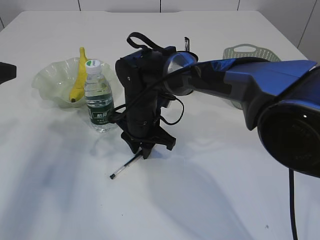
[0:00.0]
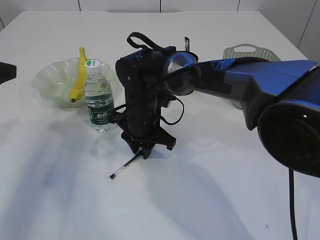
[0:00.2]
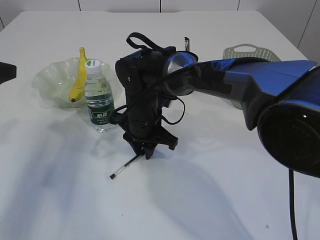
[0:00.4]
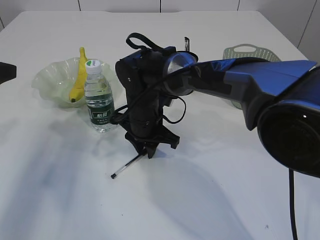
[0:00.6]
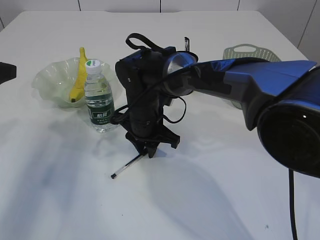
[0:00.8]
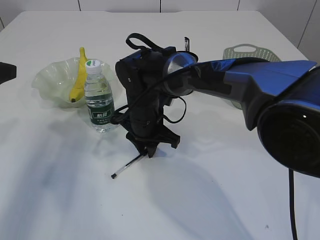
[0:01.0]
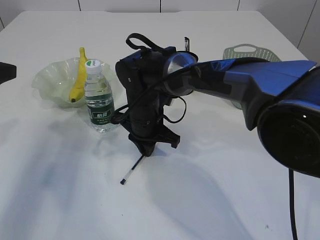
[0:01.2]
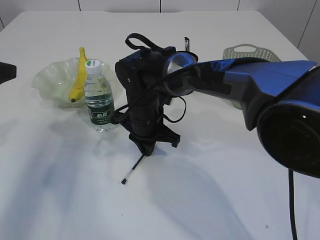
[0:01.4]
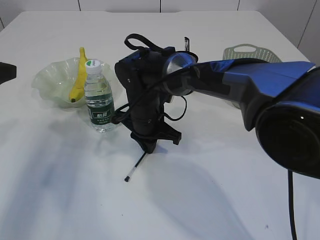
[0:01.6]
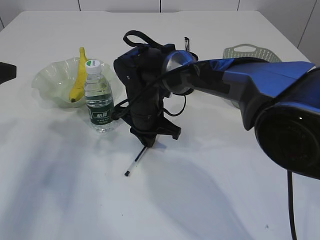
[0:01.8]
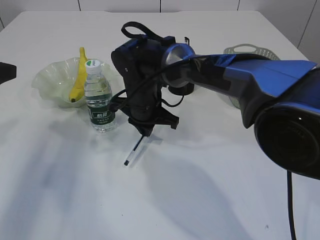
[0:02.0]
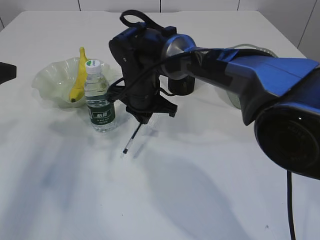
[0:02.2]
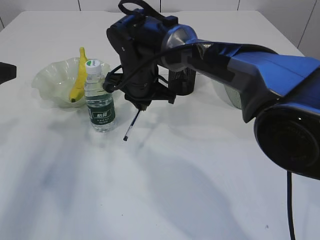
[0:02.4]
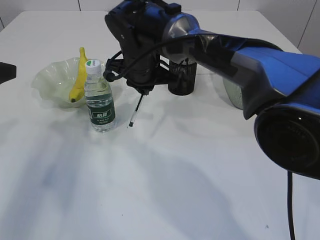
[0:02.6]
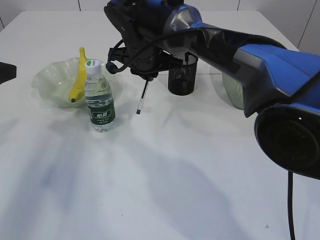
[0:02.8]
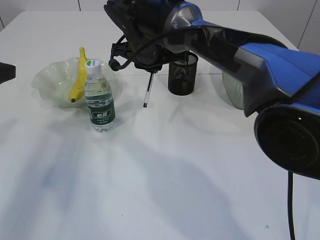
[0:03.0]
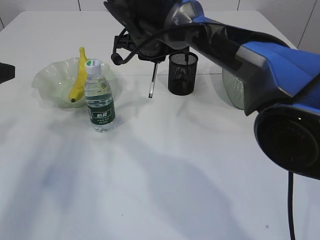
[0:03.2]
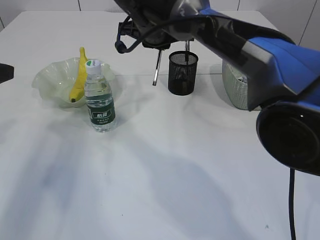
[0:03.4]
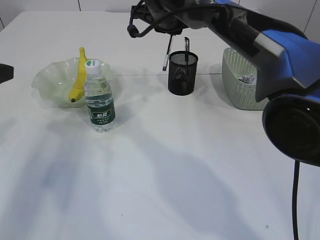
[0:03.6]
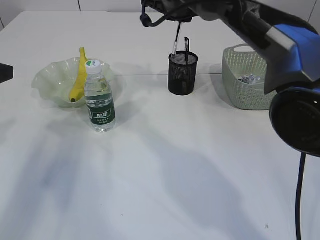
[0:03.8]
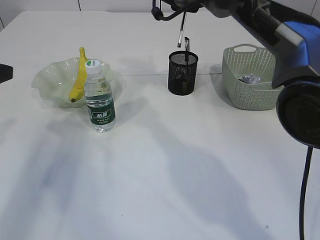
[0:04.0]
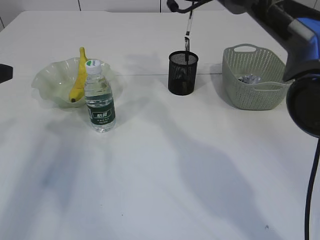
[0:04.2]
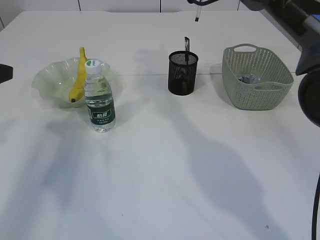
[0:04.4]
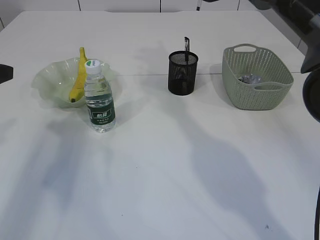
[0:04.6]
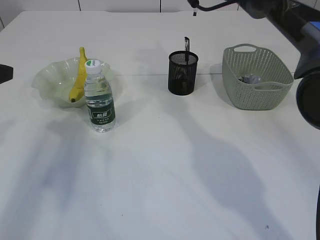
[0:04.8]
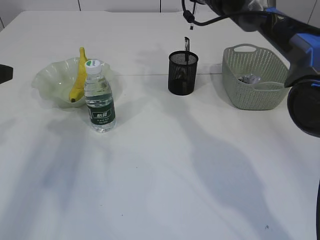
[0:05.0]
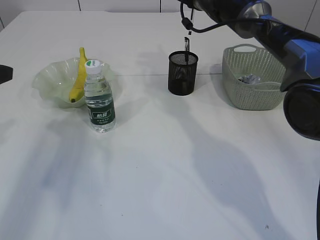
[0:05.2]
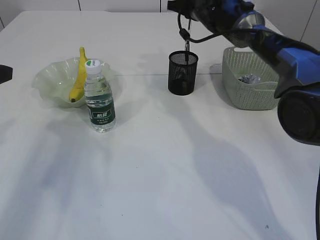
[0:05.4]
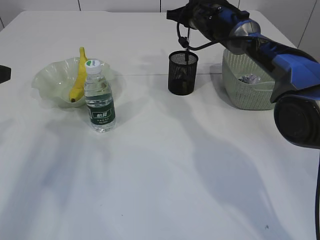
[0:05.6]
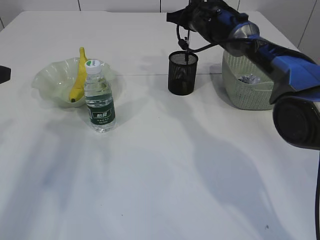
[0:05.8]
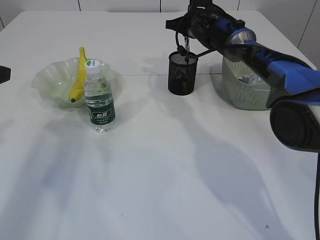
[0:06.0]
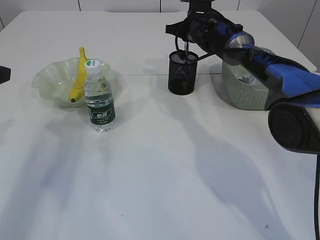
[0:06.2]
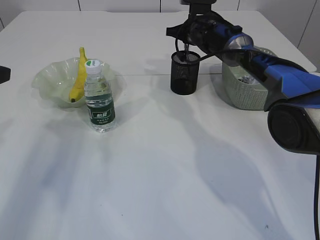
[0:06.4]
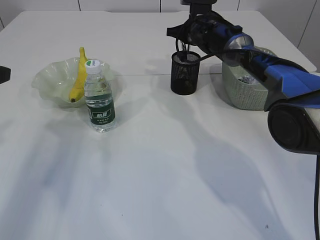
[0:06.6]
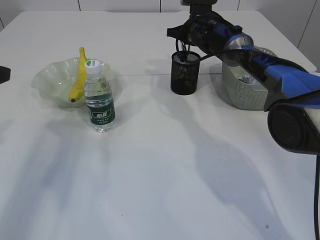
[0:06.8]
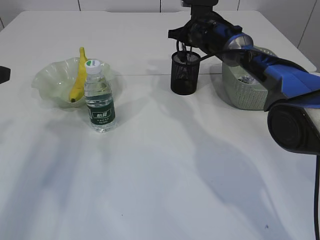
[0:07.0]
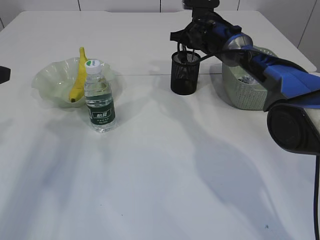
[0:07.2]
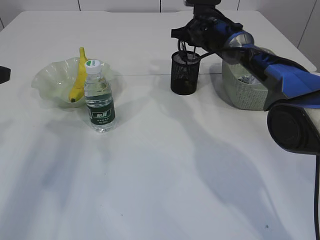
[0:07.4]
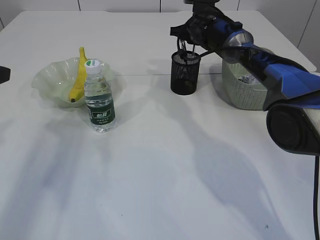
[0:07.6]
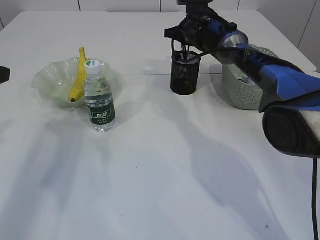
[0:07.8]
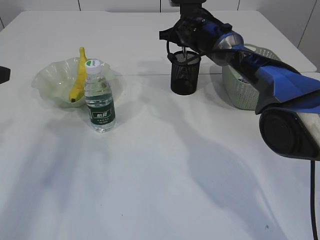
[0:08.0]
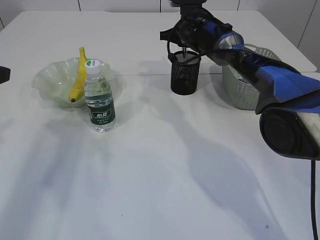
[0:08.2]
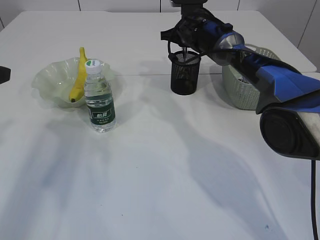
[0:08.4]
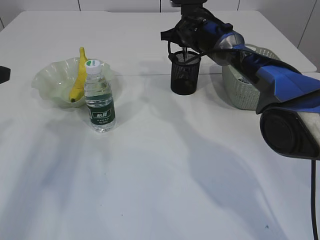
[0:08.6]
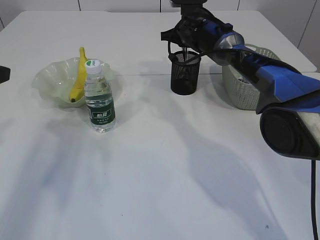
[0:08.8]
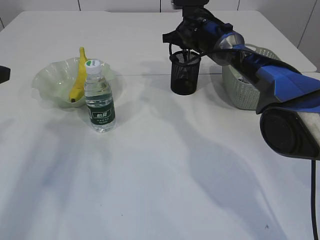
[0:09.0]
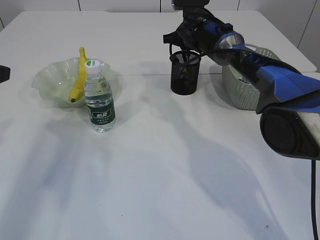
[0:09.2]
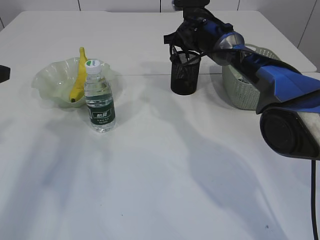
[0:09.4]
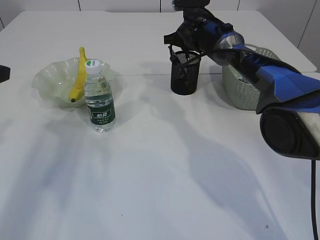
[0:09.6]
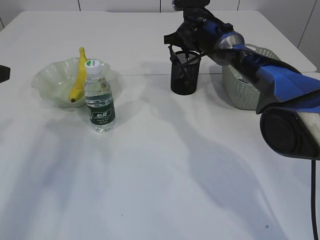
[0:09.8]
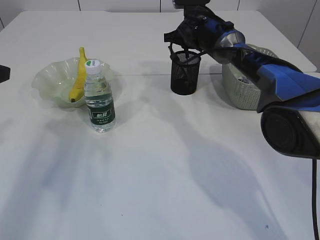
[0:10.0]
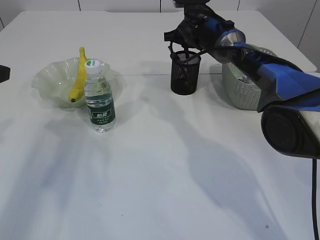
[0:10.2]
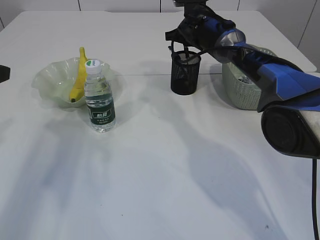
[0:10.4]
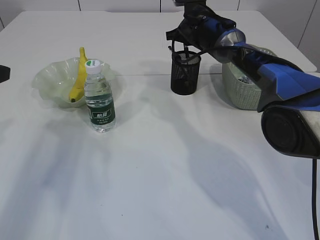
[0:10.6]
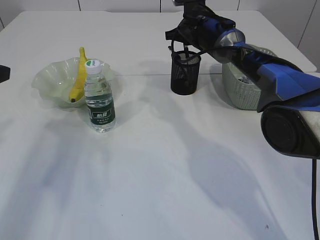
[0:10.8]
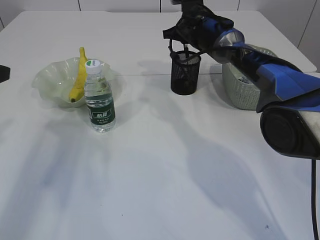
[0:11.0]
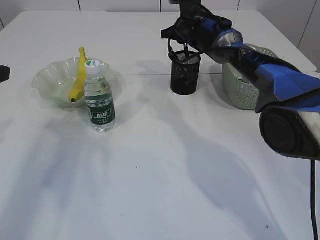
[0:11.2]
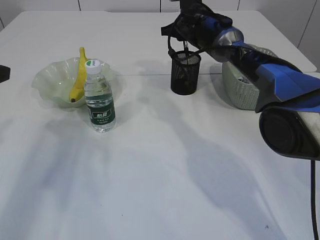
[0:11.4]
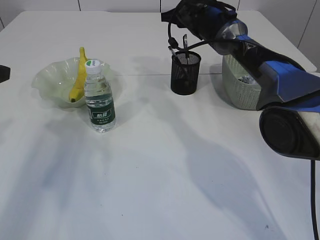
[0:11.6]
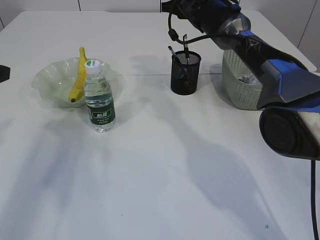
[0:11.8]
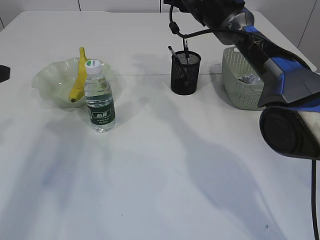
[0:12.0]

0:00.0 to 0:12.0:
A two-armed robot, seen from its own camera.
Step, 0:00.0 to 0:02.2: Pick up the pen with right arm.
Step, 0:02.4 to 0:11.4: Place the pen into the pen holder.
0:00.0 to 0:01.6: The grippers move only a little.
0:01.6 to 0:03.0: The right gripper travels upward by about 10 cm.
0:03.0 to 0:04.4: The right gripper goes some 20 cm to the right, forward and upward.
0:04.4 to 0:06.0: The right gripper travels downward by approximately 10 cm.
0:06.0 to 0:09.0: The grippers stay close to where they were, moving slightly.
0:09.0 to 0:10.4: The two grippers keep their place.
0:10.4 to 0:12.0: The right gripper goes some 5 cm upward.

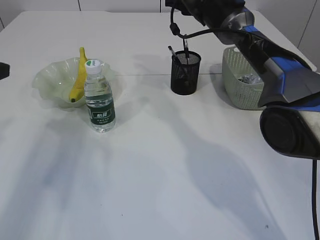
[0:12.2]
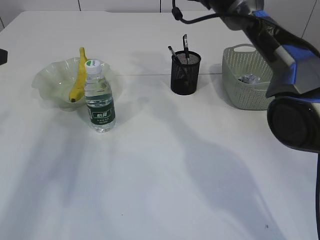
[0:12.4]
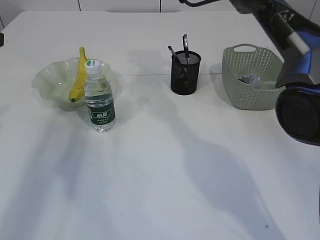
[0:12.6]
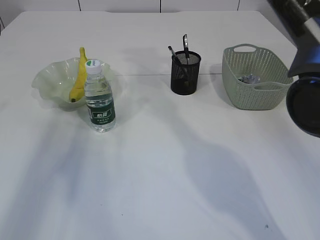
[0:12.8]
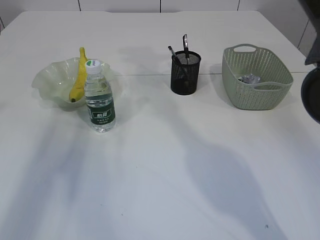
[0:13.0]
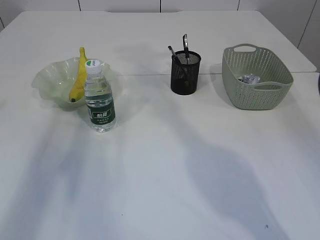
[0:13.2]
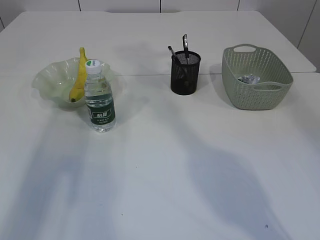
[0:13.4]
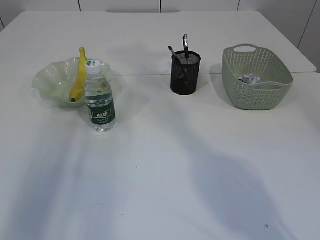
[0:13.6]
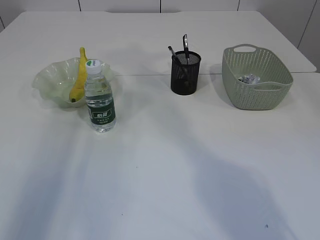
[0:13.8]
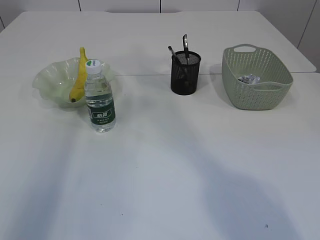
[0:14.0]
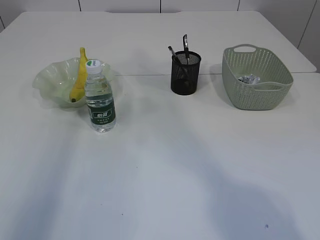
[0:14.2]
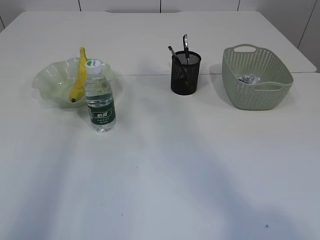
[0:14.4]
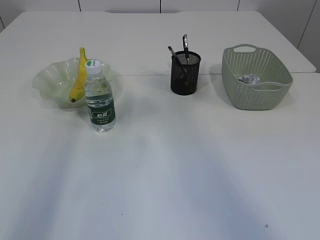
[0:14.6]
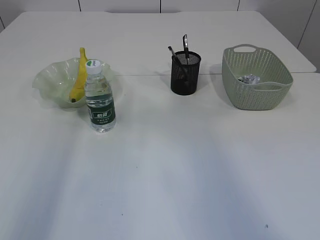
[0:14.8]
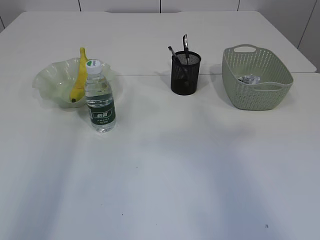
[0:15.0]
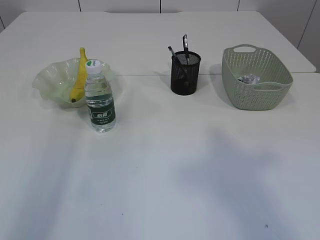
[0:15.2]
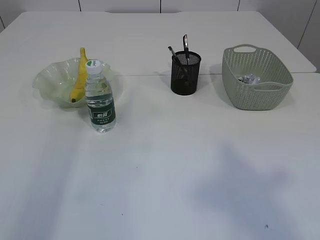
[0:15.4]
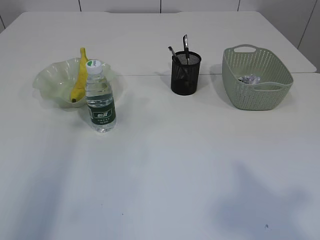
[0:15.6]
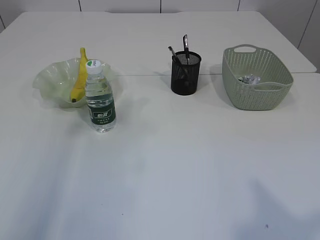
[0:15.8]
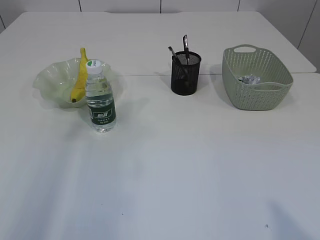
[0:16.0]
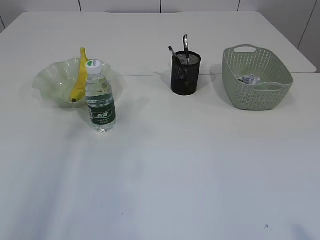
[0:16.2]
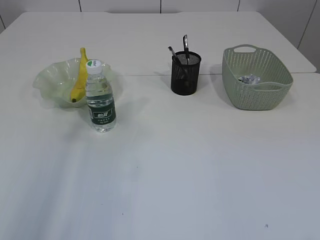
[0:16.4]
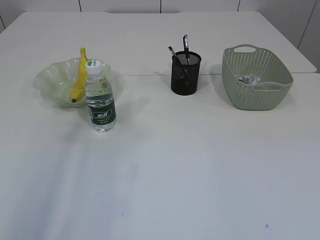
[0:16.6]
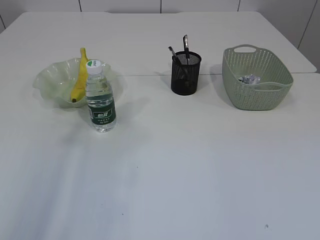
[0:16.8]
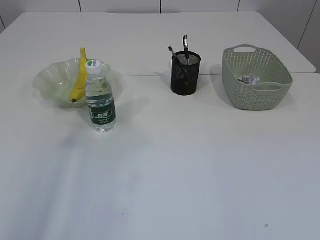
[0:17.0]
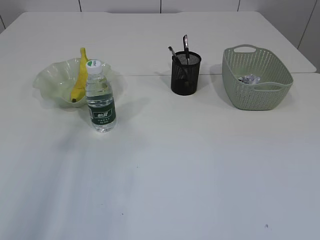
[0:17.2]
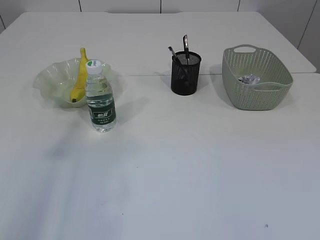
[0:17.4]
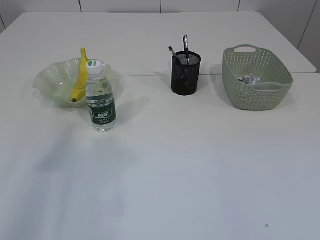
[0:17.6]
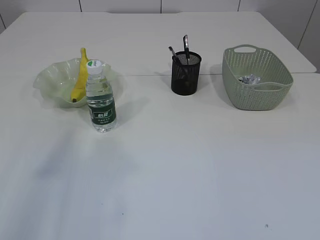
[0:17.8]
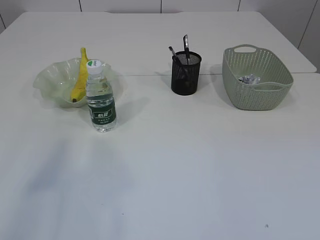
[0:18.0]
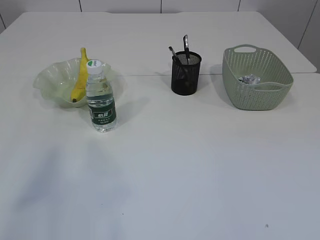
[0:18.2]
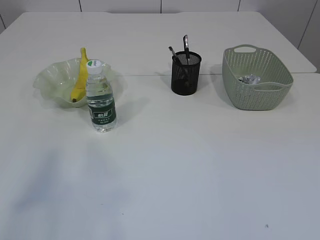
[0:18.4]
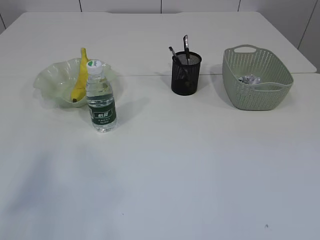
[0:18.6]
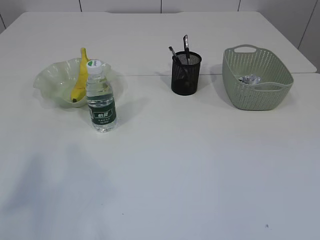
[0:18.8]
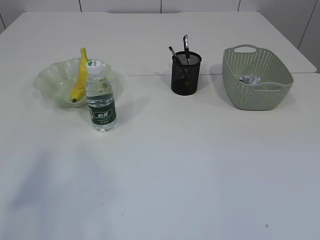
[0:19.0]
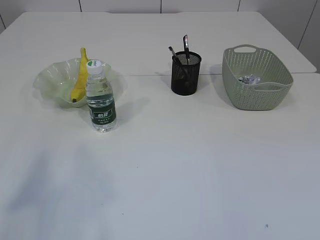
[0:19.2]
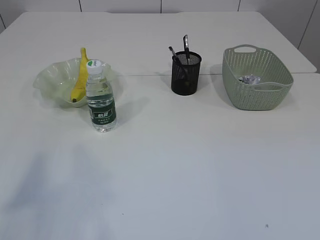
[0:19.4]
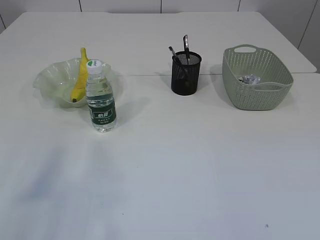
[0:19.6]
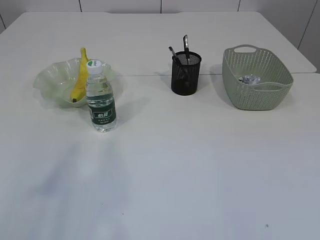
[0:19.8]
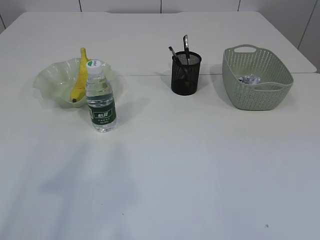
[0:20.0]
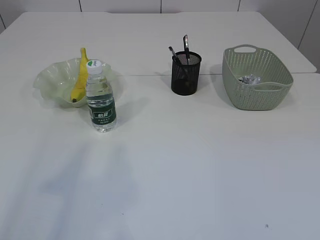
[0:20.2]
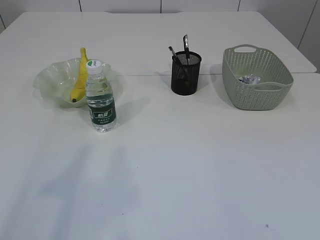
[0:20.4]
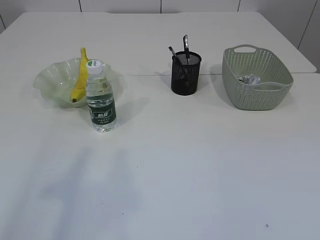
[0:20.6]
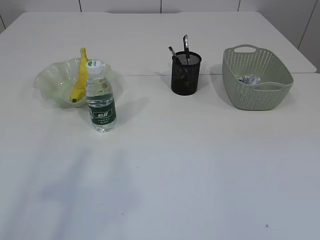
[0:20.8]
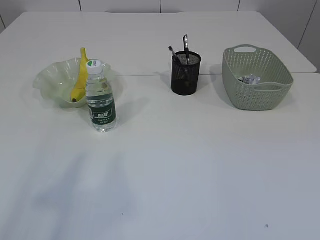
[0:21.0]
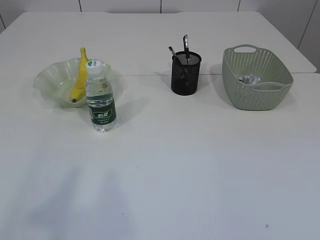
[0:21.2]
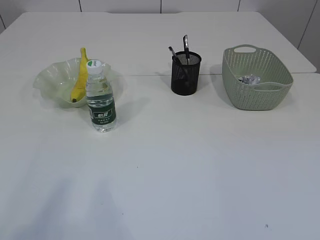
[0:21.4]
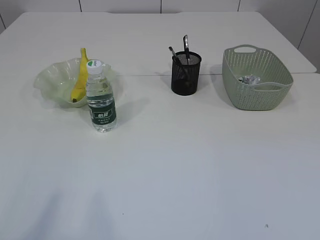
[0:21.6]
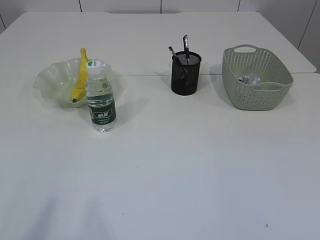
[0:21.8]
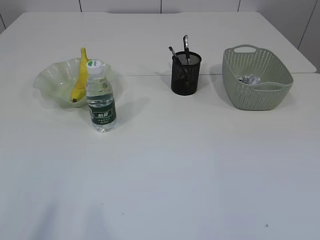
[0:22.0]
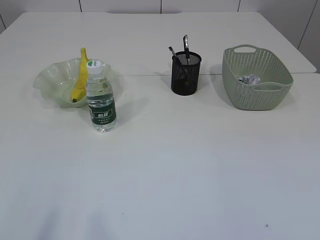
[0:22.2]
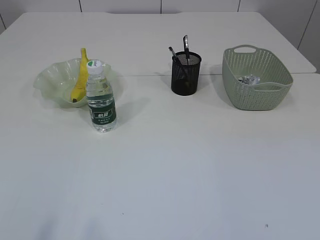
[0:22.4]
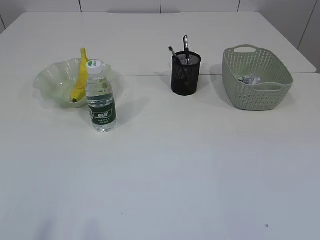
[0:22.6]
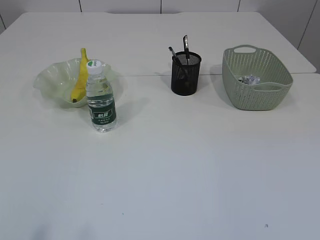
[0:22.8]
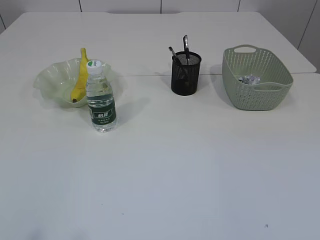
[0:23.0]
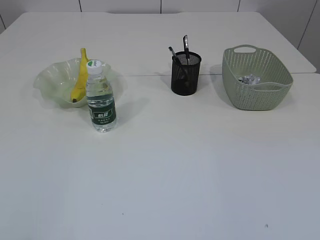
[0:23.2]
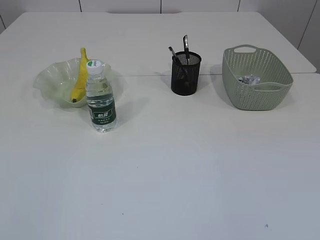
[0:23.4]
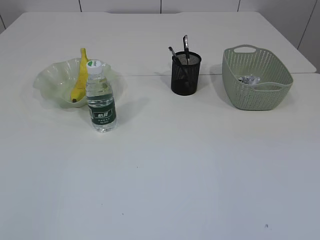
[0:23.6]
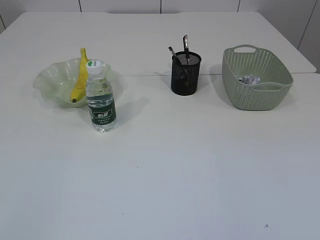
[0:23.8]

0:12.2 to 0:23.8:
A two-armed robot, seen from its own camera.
0:12.2 to 0:13.6: The right gripper travels upward and backward by about 30 cm, and closes its fingers. The left gripper heads upward, covering about 10 cm.
0:15.0 to 0:16.6: The right gripper shifts some 30 cm downward.
